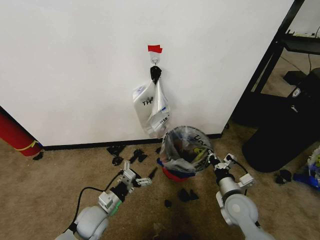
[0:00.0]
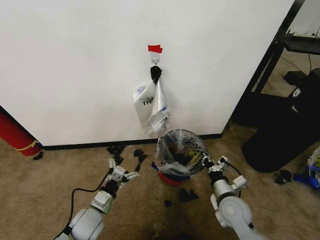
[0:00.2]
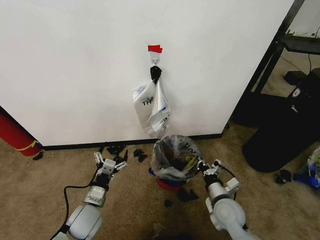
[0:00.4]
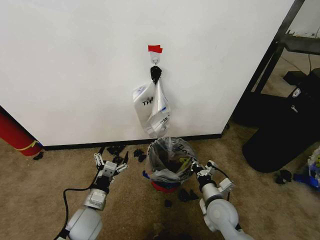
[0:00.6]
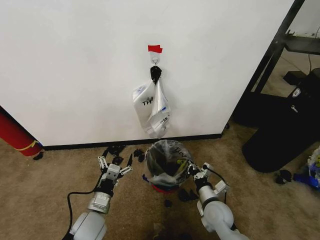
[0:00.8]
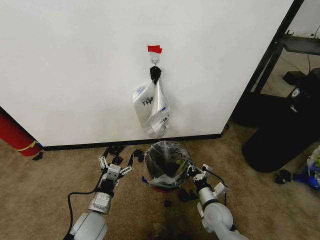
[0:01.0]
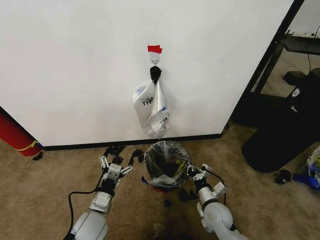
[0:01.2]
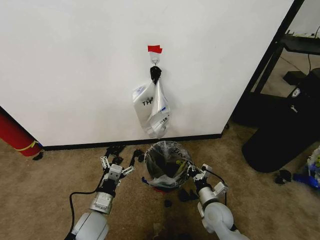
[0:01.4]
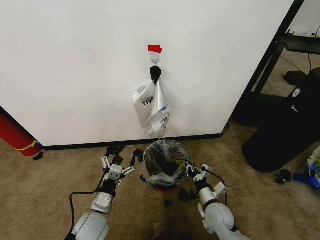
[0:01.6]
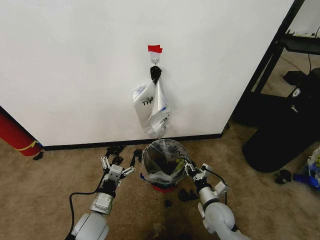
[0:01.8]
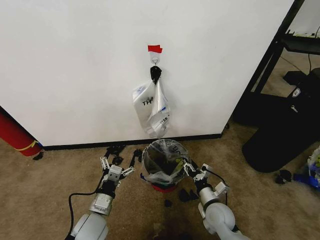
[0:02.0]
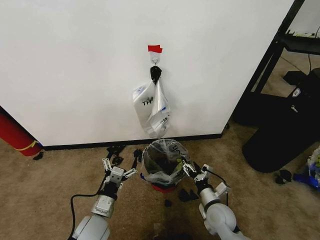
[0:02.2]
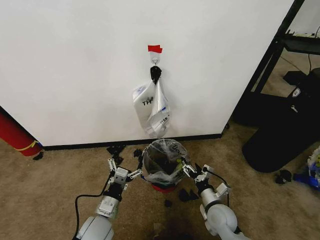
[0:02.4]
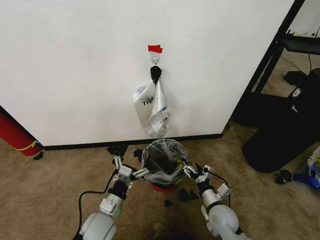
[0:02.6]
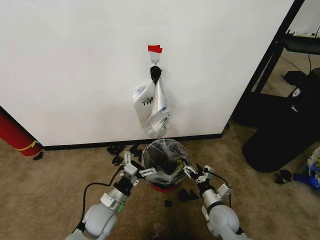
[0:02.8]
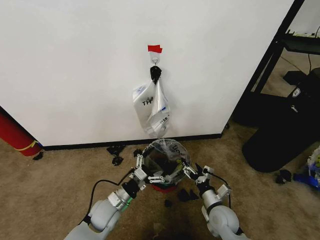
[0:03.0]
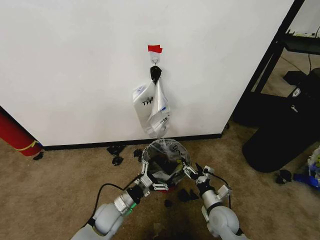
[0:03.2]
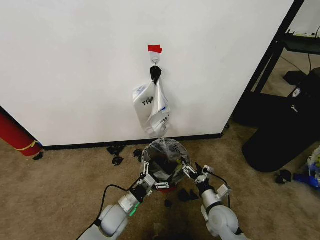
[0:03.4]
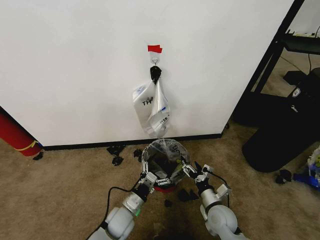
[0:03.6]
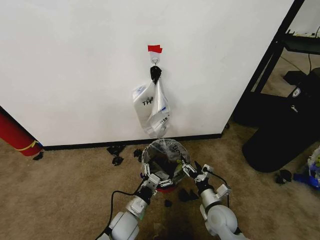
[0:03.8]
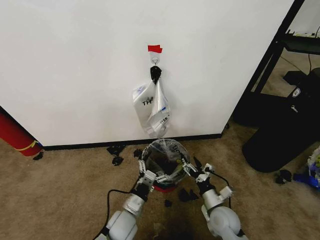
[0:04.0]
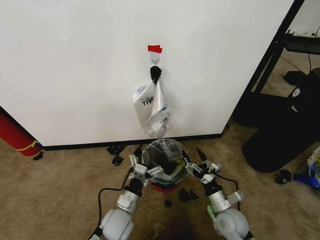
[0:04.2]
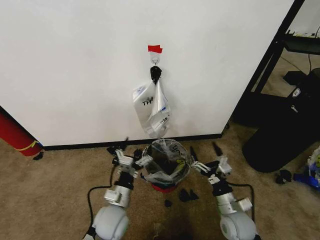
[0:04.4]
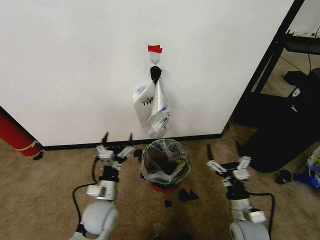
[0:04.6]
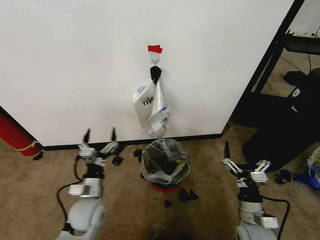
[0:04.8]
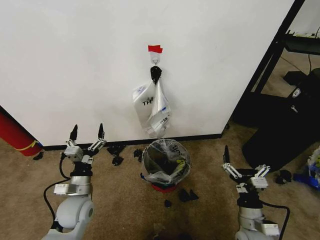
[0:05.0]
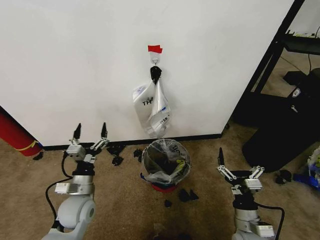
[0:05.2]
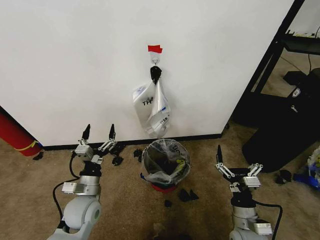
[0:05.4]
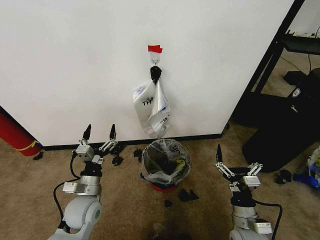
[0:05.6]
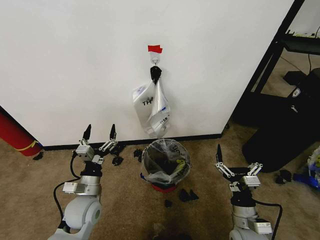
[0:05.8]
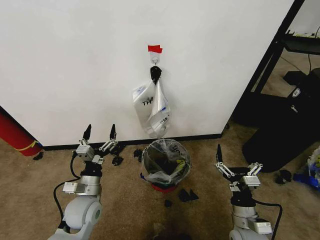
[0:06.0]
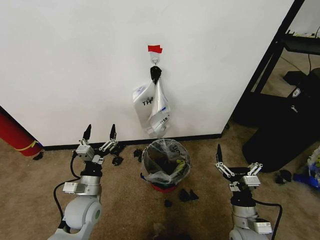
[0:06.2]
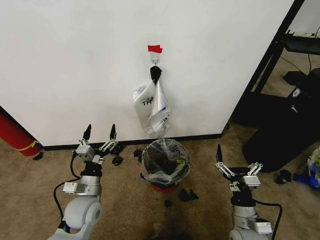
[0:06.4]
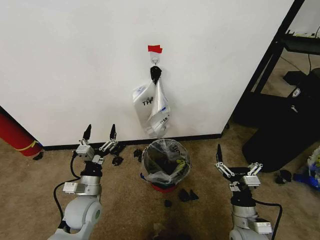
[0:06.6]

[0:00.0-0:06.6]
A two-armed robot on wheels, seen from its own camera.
Task of the whole recording: Pick up the garbage bag from the wall and place it over the trash bin.
0:00.0 to 0:01.6: The right gripper travels downward by about 5 cm.
0:01.6 to 0:03.2: The left gripper shifts roughly 5 cm downward, while the right gripper opens its fingers.
0:03.2 to 0:05.0: The right gripper heads backward, upward and to the right, covering some 10 cm. Meanwhile the left gripper goes approximately 10 cm upward and to the left.
0:05.0 to 0:06.6: The grippers move only a little.
